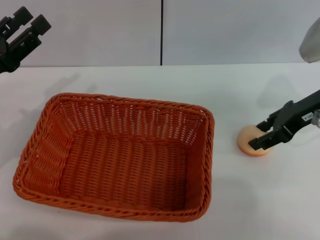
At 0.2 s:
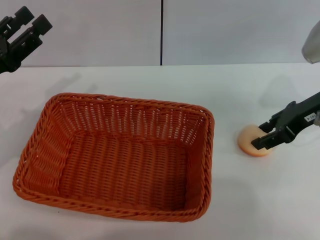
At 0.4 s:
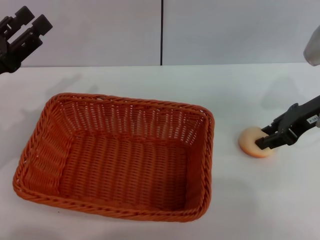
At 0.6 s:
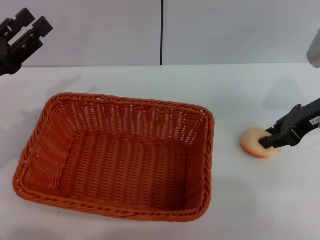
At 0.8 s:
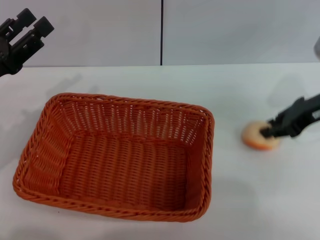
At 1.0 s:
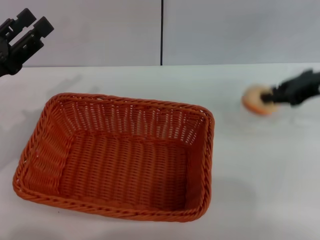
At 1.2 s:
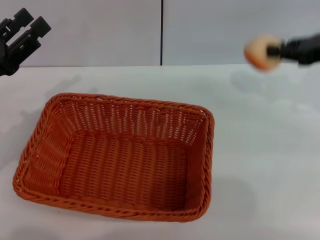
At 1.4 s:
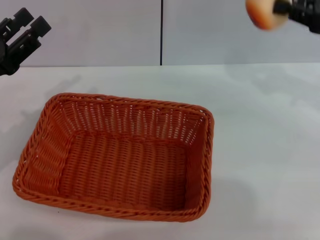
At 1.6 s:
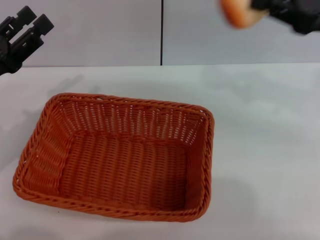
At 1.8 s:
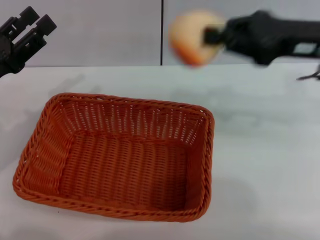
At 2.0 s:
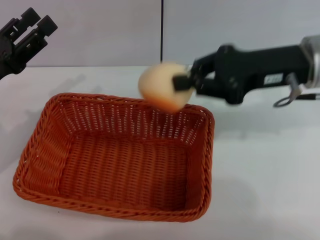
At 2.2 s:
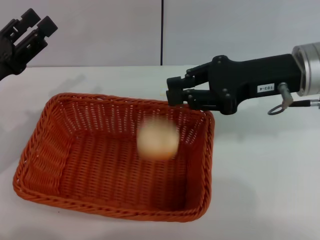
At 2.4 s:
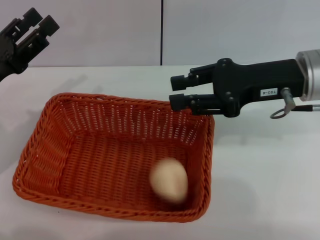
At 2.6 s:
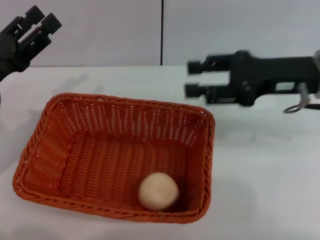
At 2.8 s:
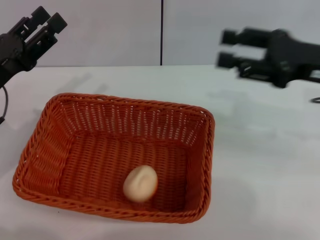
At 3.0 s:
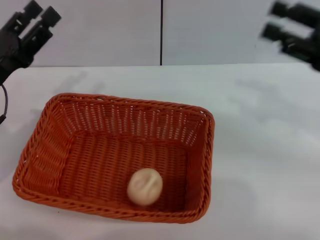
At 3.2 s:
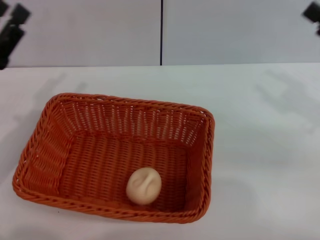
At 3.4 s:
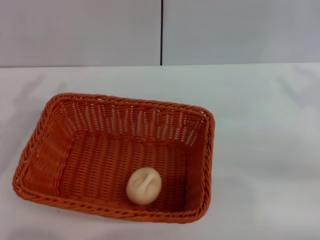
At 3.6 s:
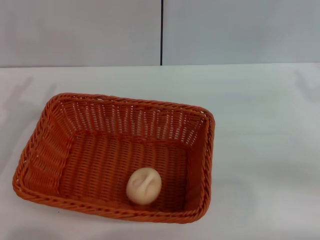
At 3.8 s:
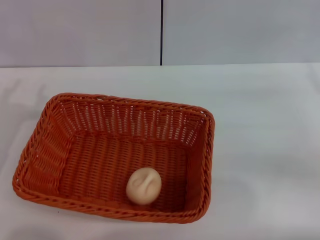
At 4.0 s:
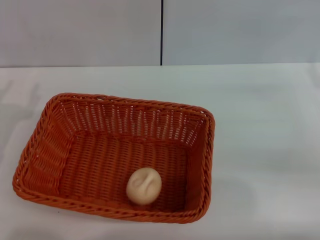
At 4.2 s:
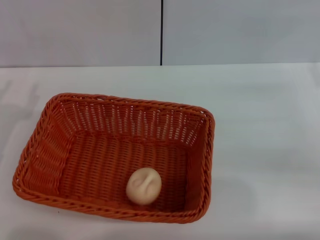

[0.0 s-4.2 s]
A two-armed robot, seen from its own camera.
Step, 1.4 to 2.6 s: Place the egg yolk pastry into the basket with the right gripper.
0.0 to 1.4 s: The right gripper shifts roughly 10 cm upward and to the right, and closes.
1.4 to 2.8 s: The right gripper travels to the left by roughly 5 cm, and opens.
2.8 to 4.2 s: The right gripper is displaced to the right and downward by approximately 10 cm; the left gripper moves backward, approximately 5 cm.

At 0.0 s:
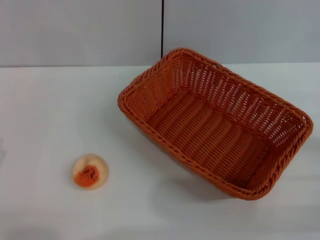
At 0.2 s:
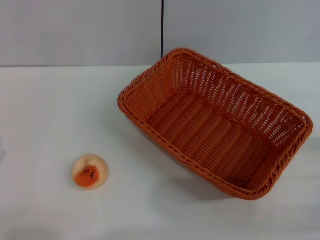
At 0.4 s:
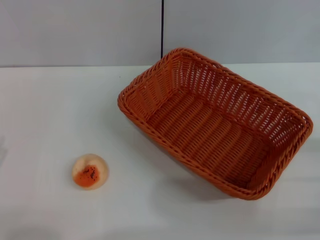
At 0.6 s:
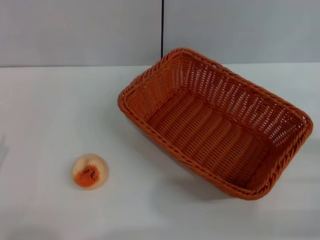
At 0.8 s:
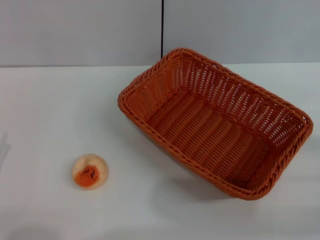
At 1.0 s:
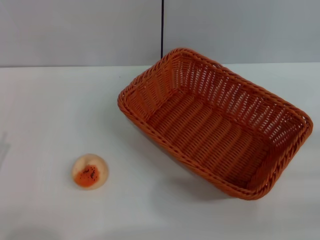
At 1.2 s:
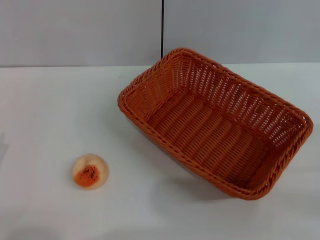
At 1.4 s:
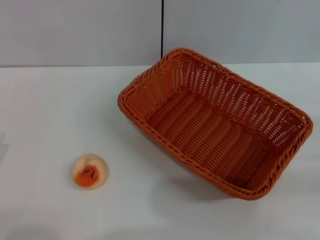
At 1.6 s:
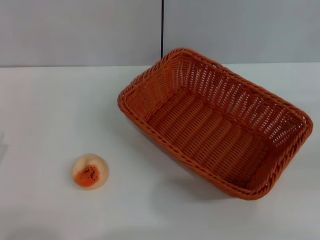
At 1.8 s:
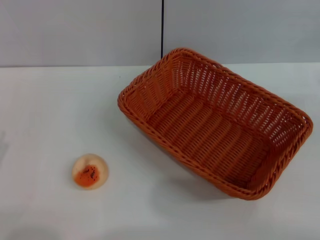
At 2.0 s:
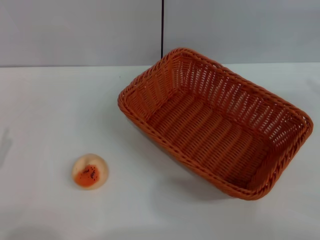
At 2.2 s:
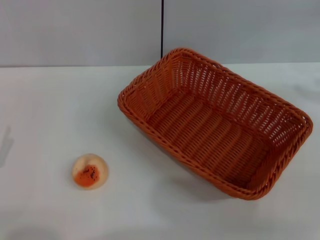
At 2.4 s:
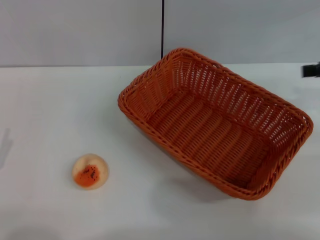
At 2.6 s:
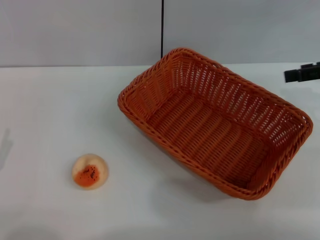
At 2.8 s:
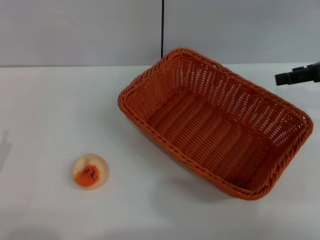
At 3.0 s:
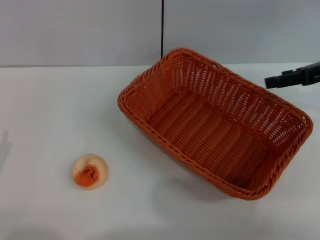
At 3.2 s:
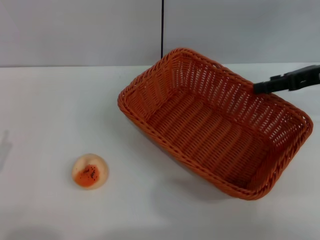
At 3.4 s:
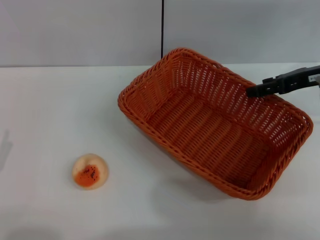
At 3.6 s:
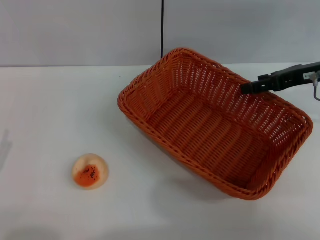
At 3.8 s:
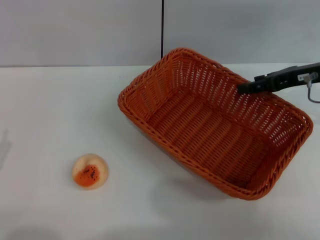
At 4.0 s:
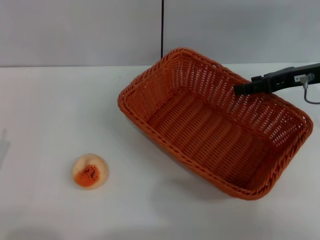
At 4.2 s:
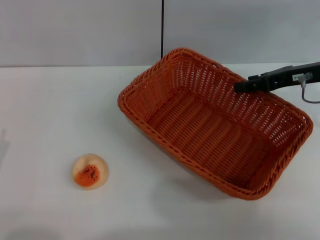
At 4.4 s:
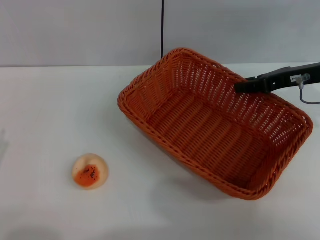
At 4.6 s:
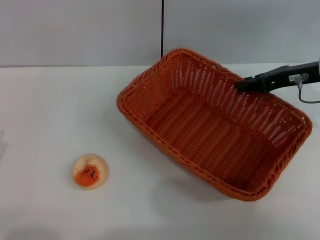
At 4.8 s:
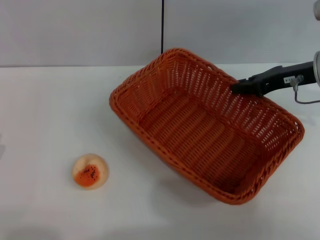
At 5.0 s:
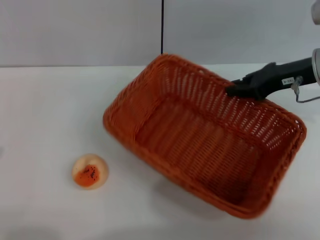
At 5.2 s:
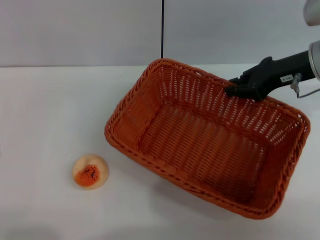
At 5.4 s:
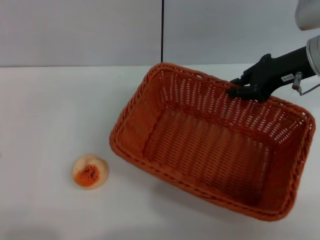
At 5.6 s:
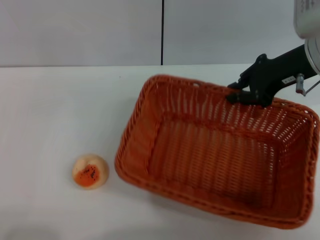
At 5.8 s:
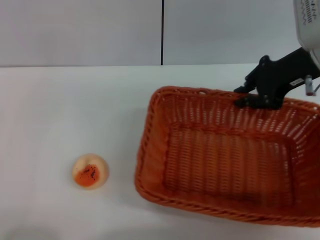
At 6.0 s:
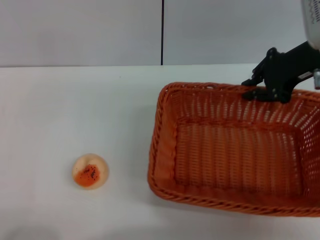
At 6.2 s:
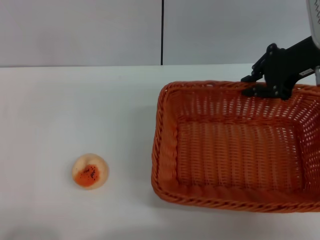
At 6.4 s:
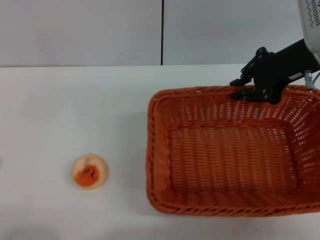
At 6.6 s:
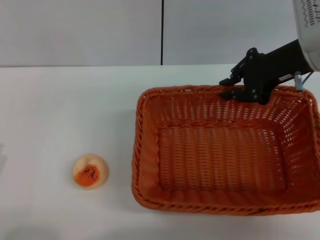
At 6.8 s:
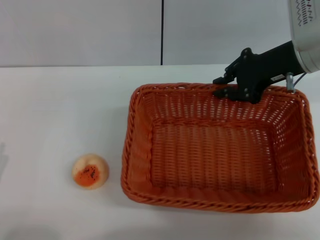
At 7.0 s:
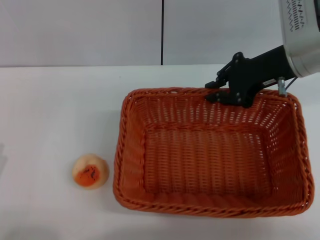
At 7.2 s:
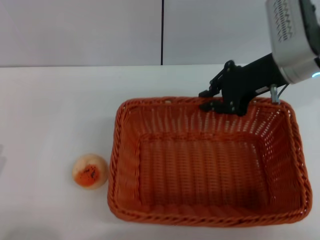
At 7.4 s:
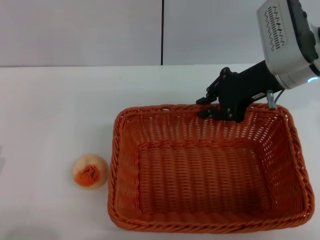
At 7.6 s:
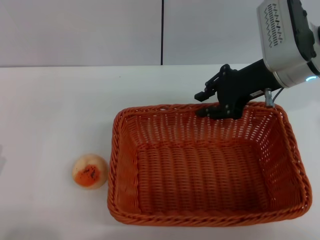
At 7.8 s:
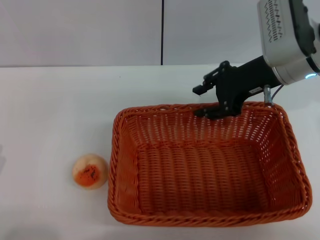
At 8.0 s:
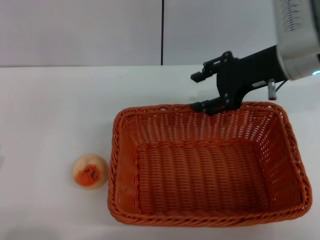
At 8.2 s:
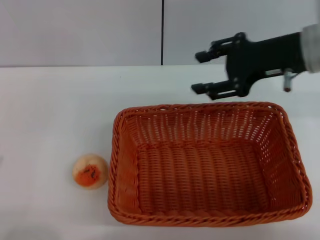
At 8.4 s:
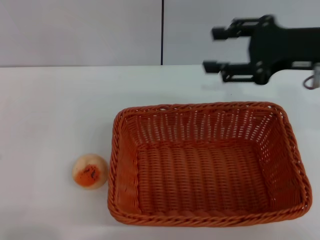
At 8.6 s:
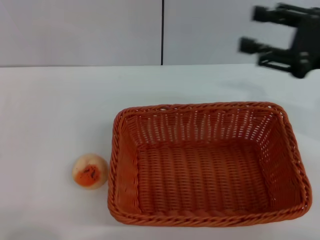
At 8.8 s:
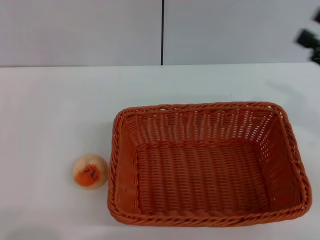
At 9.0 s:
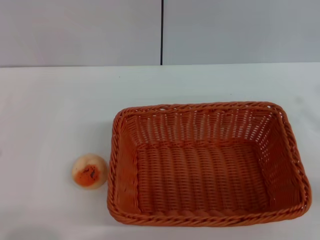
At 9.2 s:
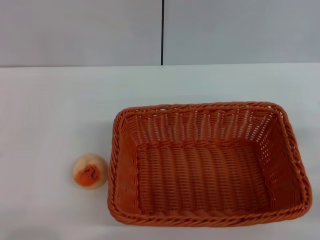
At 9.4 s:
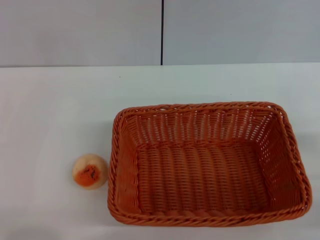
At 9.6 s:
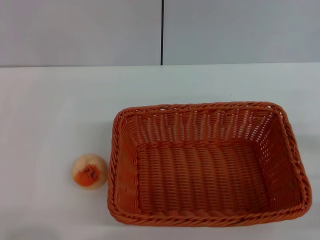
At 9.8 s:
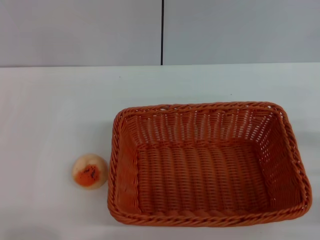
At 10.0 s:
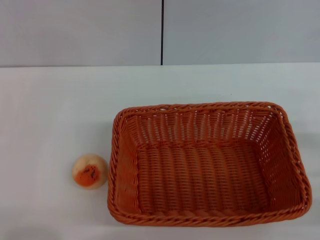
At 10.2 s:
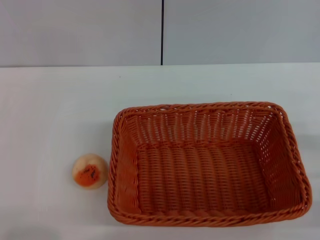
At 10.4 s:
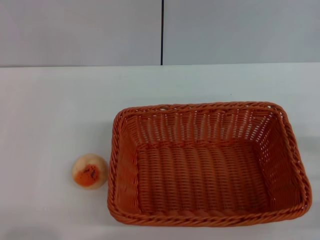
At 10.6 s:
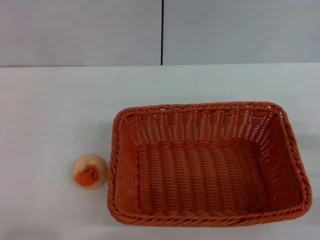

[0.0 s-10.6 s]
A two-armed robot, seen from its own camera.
Step, 0.0 to 8.0 s: Move the basket to the center of view with the right gripper.
1.6 to 3.0 s: The right gripper is displaced forward and to the left by some 15 cm.
3.0 to 4.6 s: The right gripper moves to the left, roughly 5 cm, and closes.
4.6 to 6.0 s: The right gripper is displaced upward by roughly 5 cm, and closes.
6.0 to 7.6 s: The right gripper changes place by roughly 5 cm.
7.6 to 9.0 s: The right gripper goes roughly 25 cm to the right and backward, and opens its fingers.
9.0 to 10.6 s: The right gripper goes roughly 5 cm downward.
